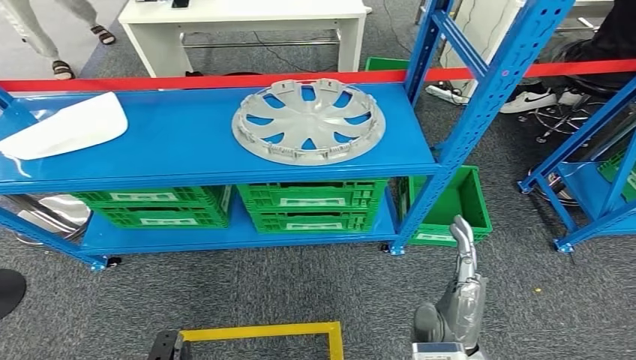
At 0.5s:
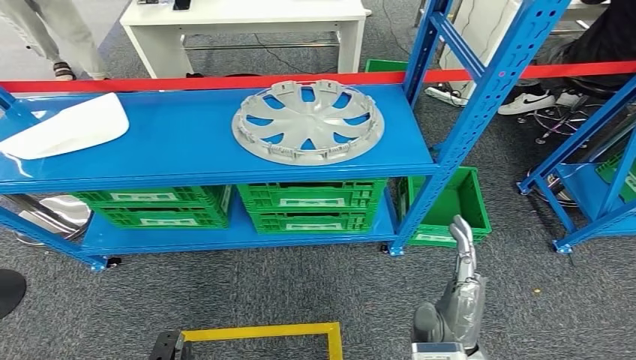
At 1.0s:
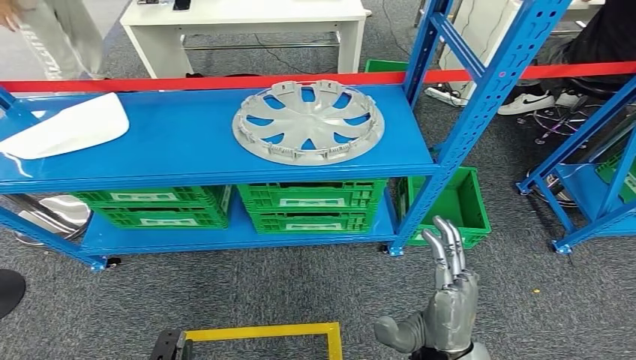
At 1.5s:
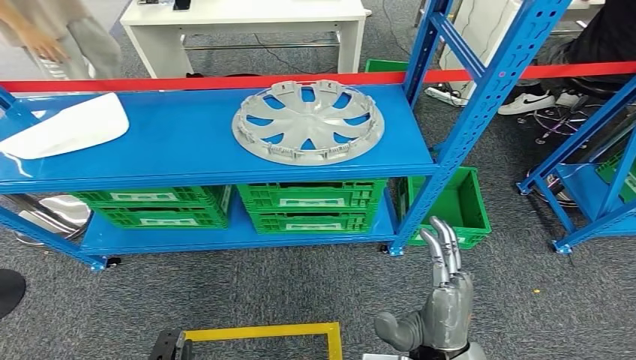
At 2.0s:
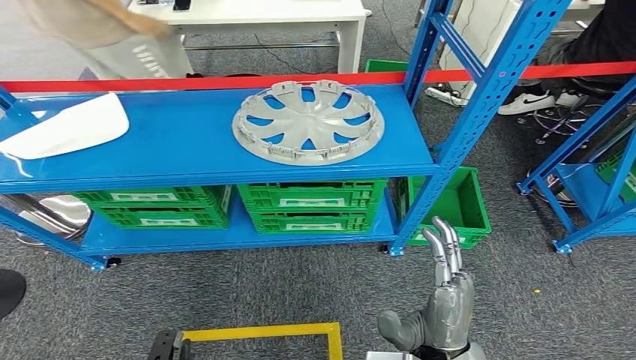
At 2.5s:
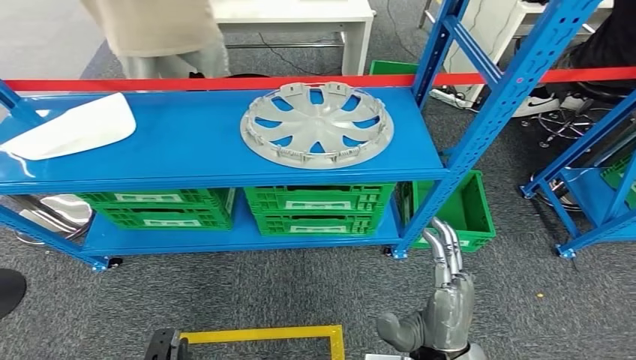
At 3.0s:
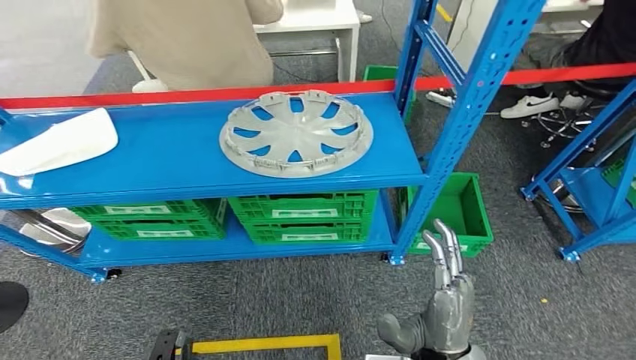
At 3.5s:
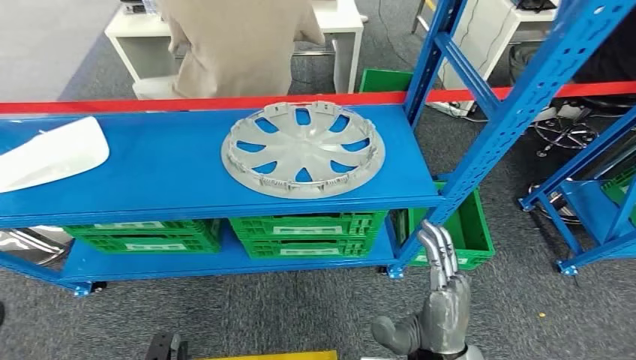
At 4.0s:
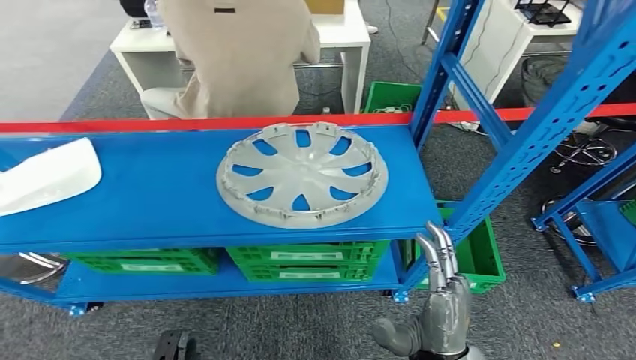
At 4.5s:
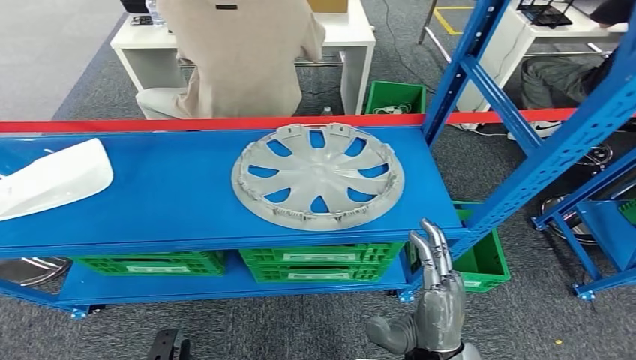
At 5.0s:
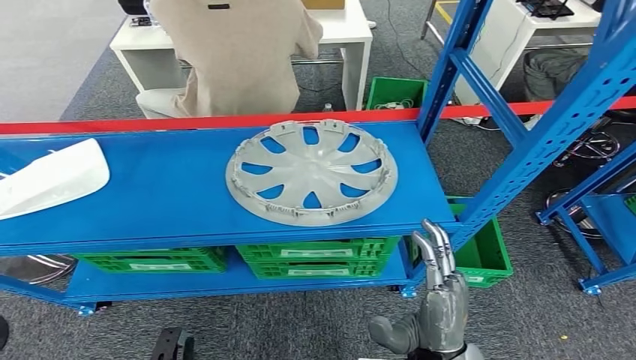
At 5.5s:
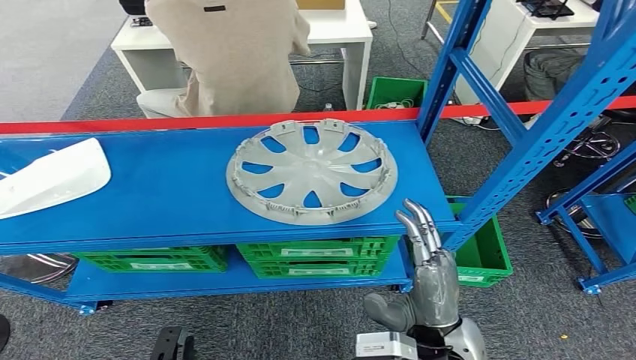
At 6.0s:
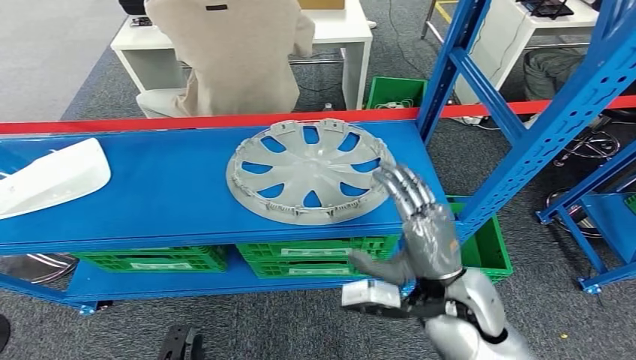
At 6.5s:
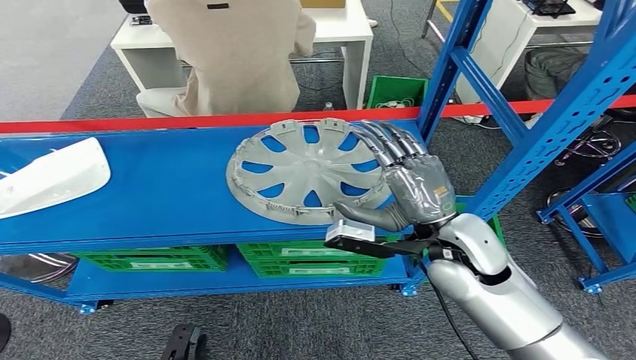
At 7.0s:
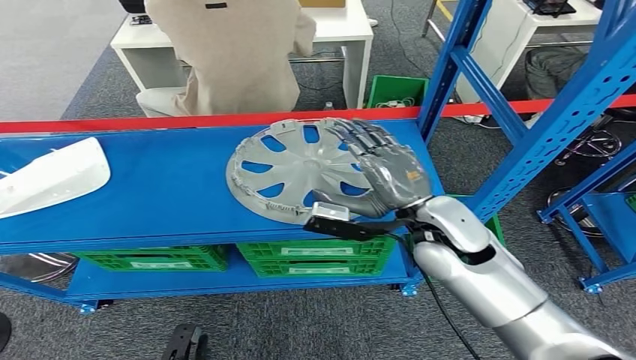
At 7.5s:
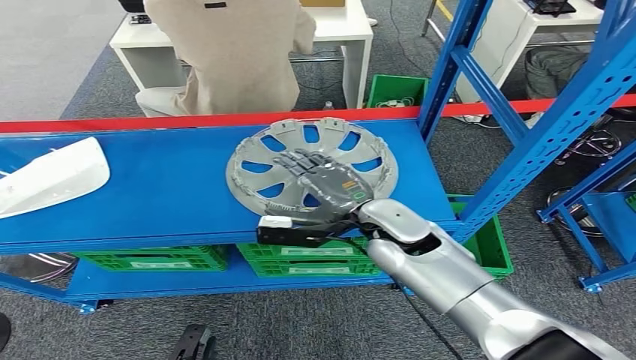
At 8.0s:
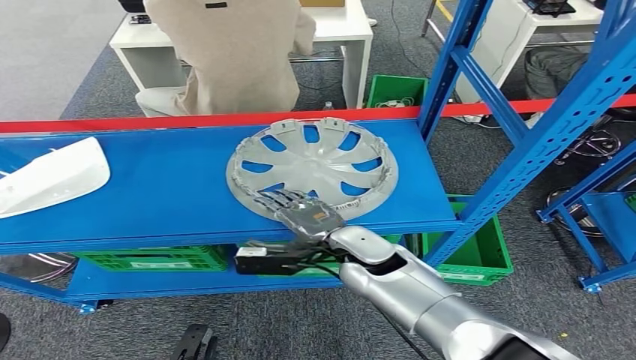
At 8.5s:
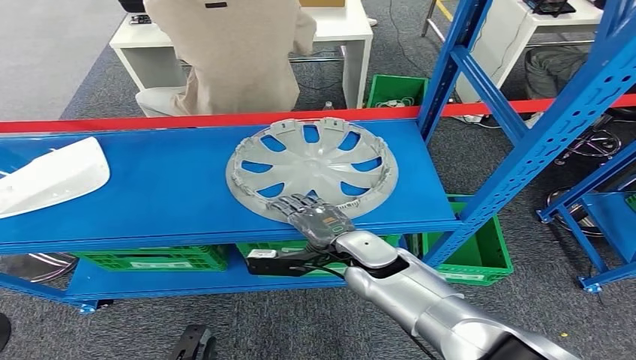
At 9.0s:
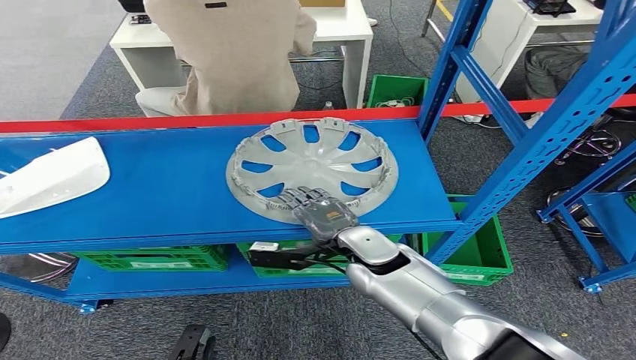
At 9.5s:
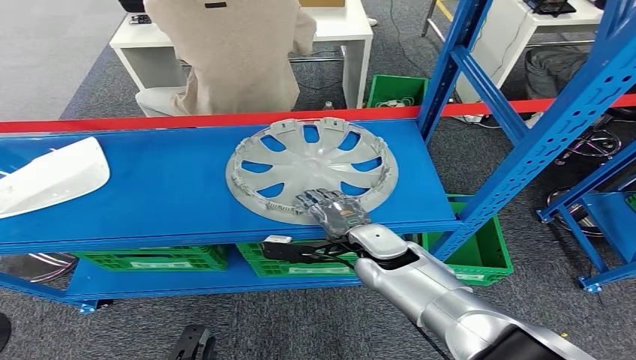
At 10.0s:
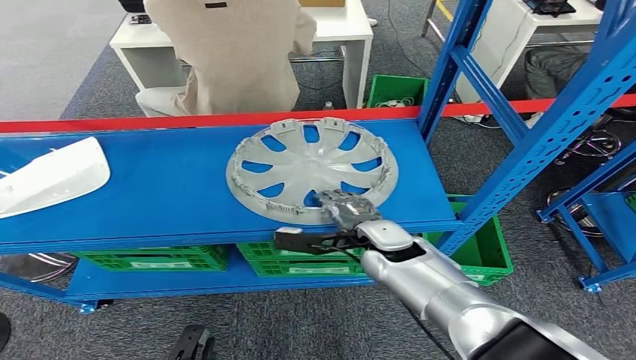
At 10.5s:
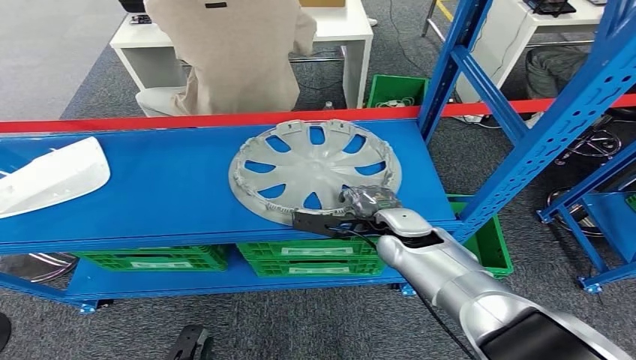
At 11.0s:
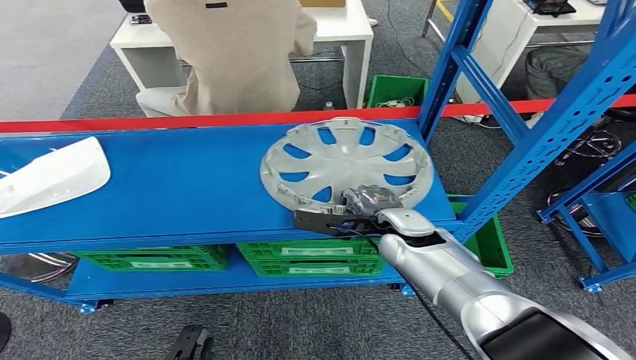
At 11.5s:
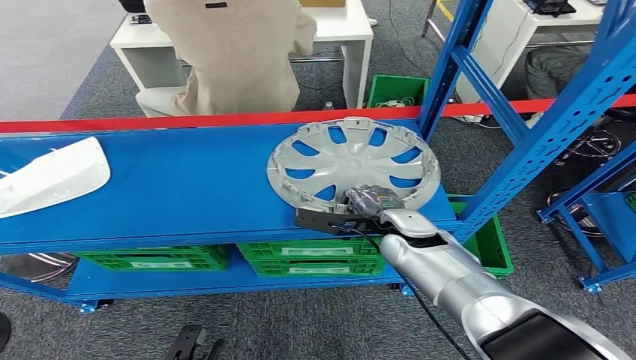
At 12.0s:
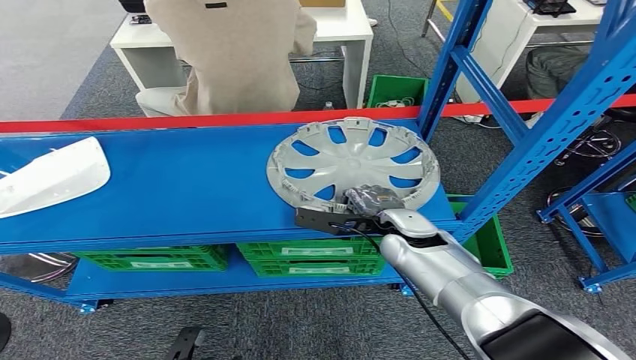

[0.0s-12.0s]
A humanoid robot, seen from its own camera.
0.0s to 2.0s: The hands move only a little.
6.0s to 8.0s: The right hand goes about 15 cm to the left and forward.
10.0s to 12.0s: There are only small adjustments of the hands.

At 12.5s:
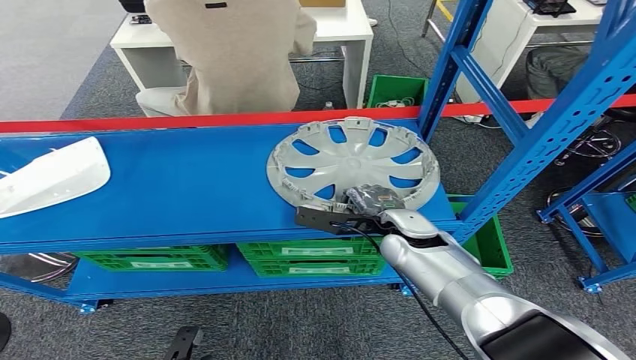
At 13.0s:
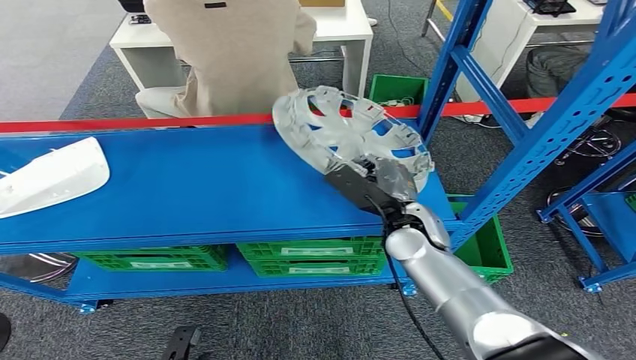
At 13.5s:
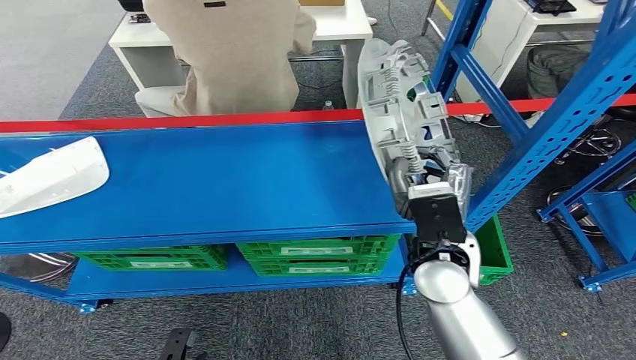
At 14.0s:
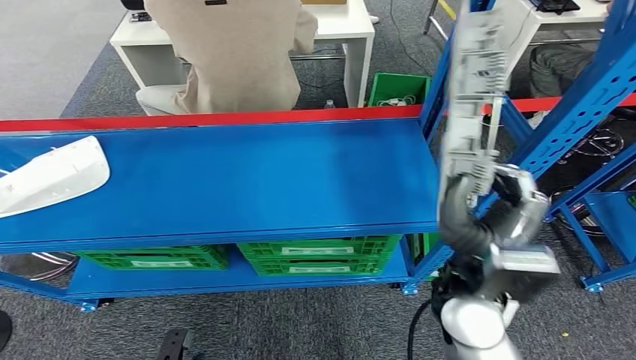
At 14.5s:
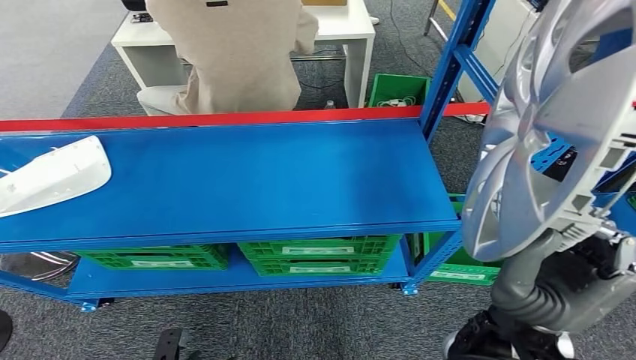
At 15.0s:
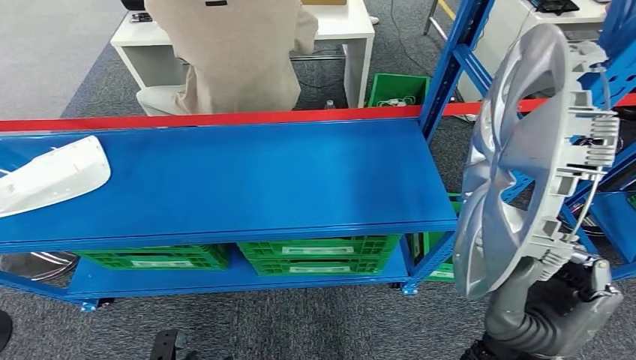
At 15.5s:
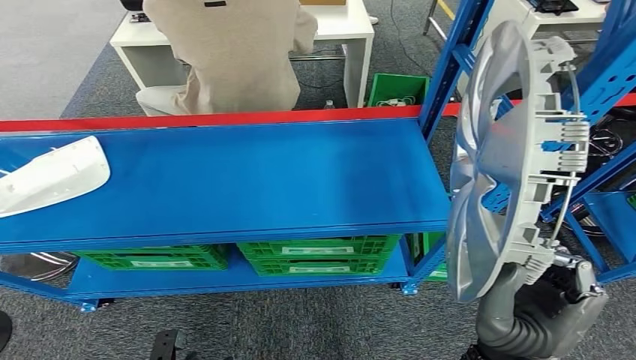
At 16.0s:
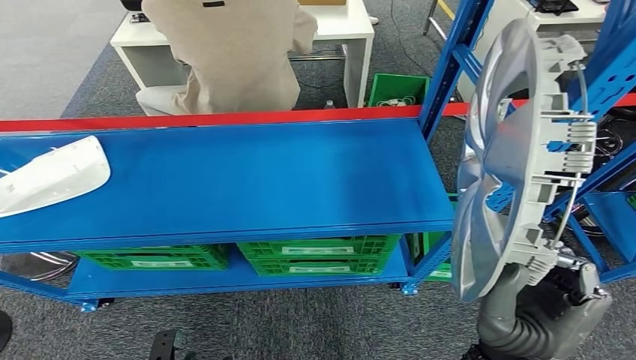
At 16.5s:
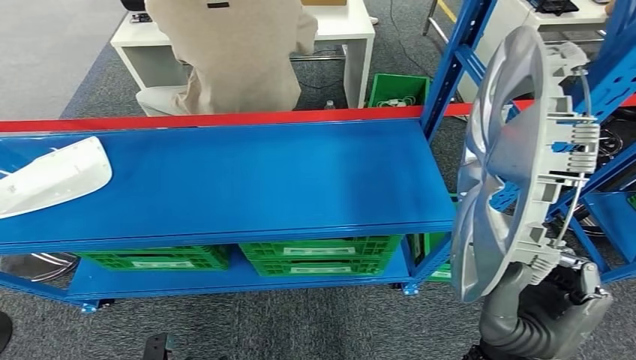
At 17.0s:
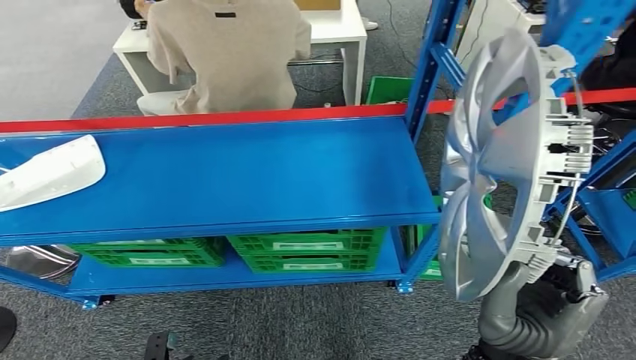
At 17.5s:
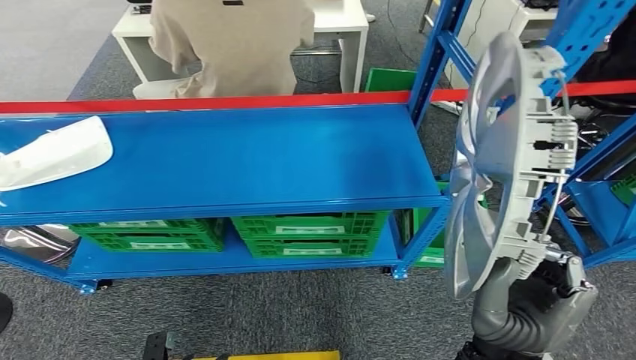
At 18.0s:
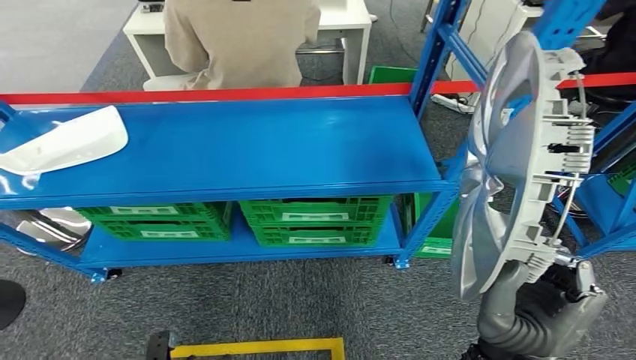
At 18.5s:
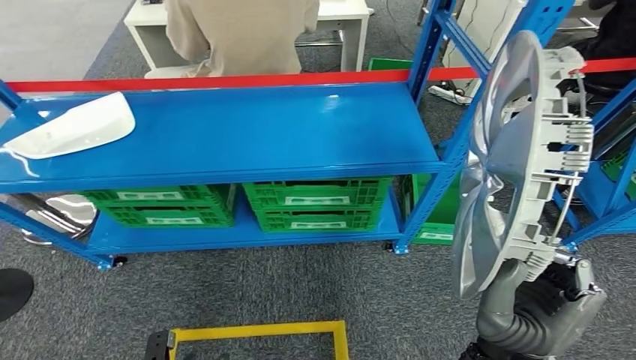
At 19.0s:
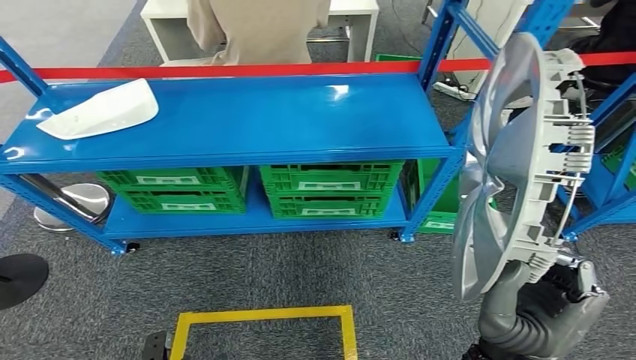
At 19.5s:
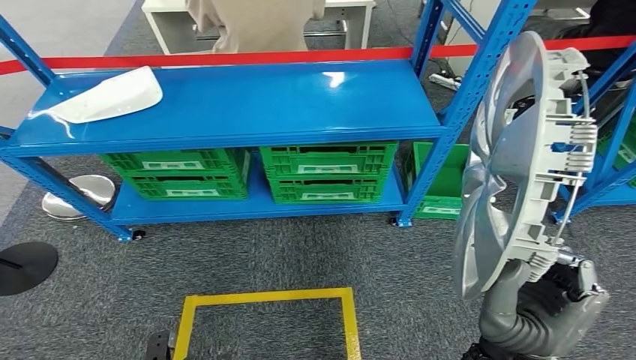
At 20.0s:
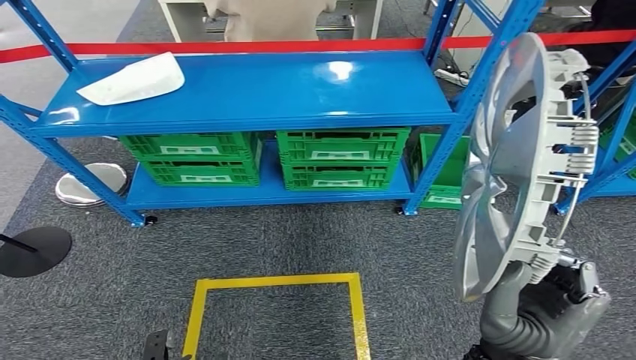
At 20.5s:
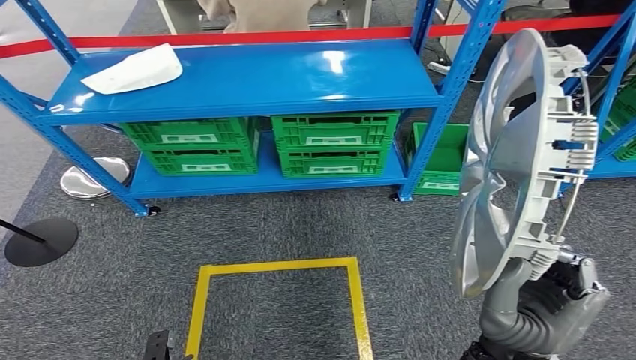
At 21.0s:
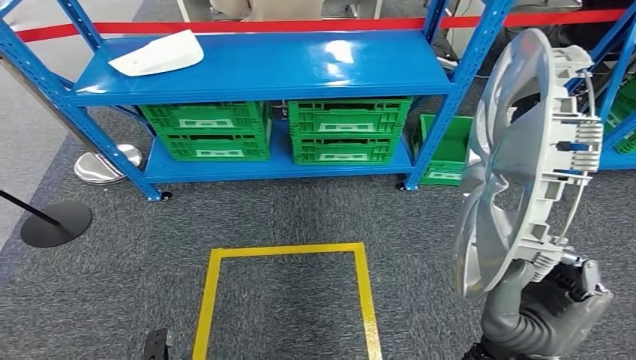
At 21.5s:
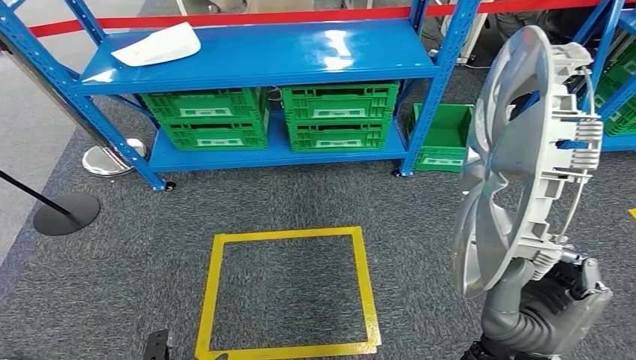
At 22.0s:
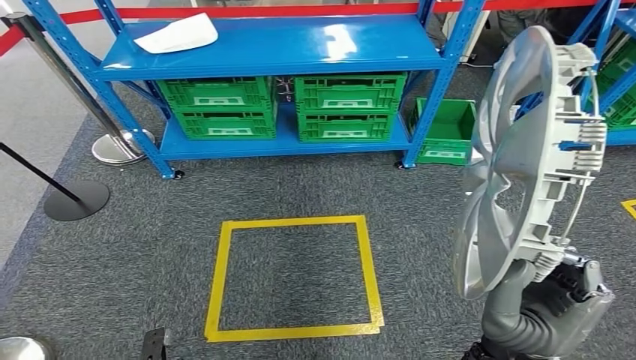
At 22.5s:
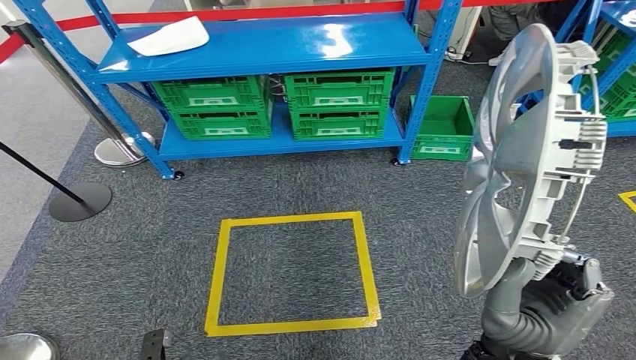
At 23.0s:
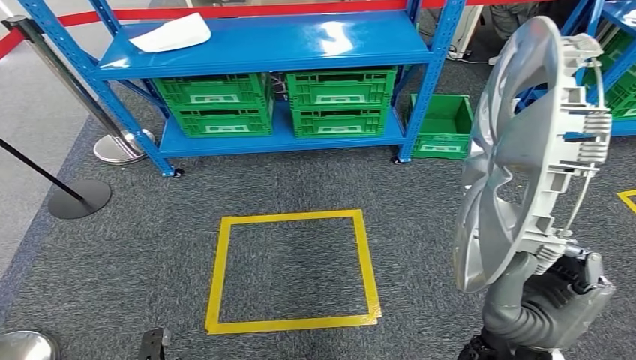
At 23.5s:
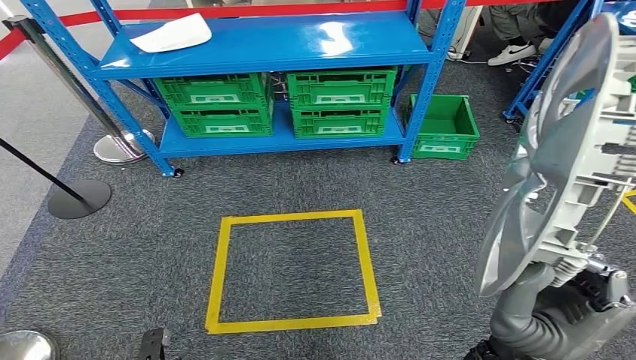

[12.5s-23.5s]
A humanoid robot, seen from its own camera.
Step, 12.5s to 15.0s: Pick up the small component from the shelf.
14.5s to 16.0s: The hands make only small movements.
